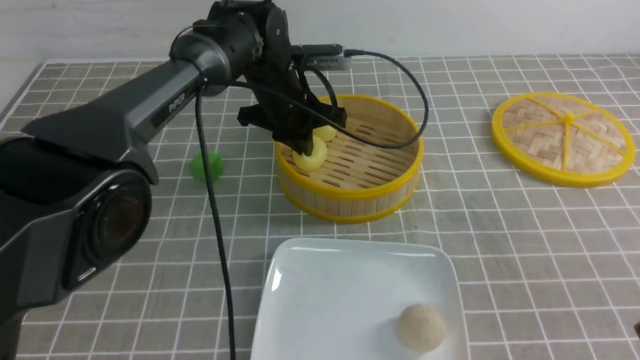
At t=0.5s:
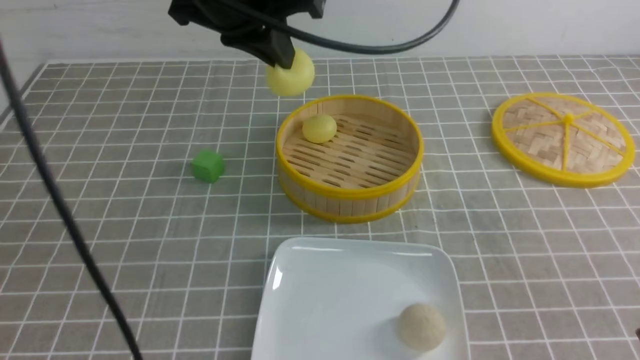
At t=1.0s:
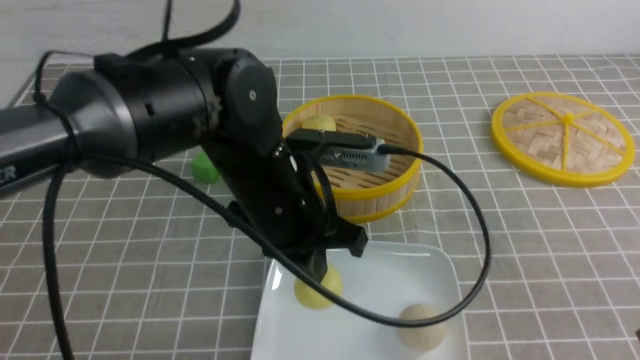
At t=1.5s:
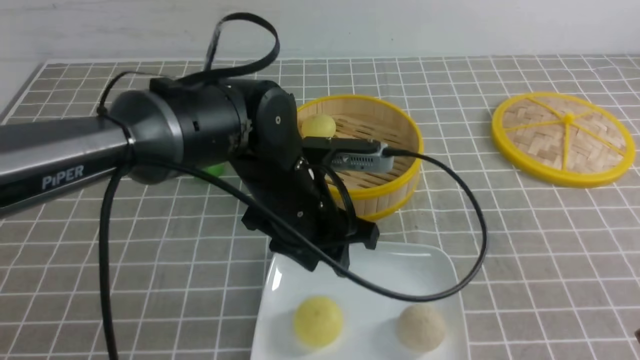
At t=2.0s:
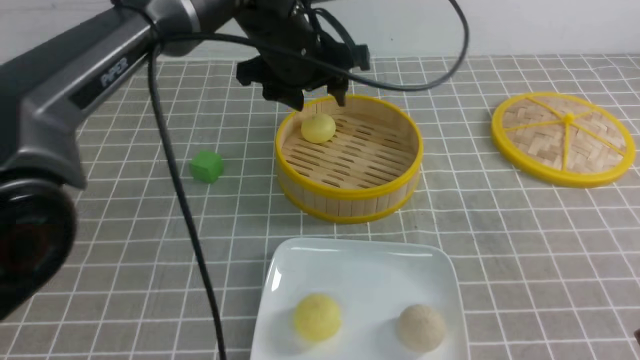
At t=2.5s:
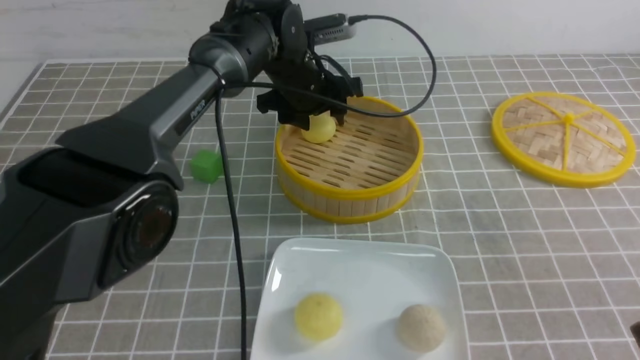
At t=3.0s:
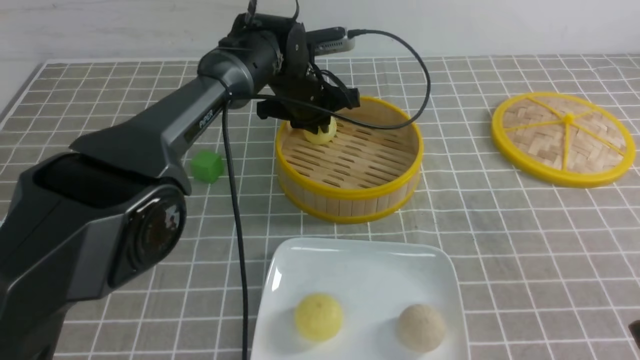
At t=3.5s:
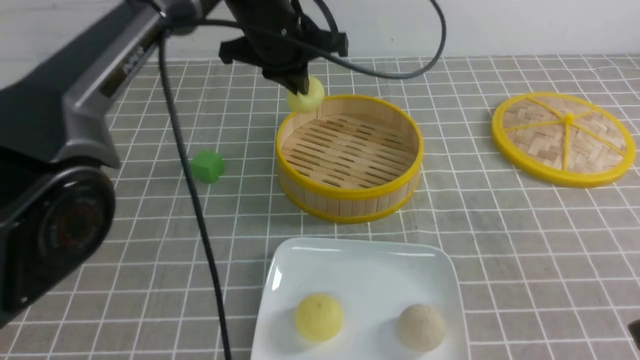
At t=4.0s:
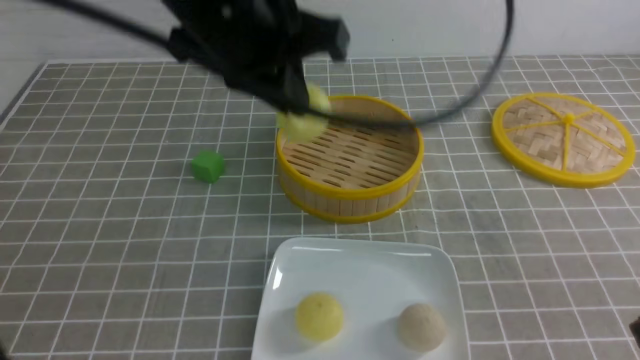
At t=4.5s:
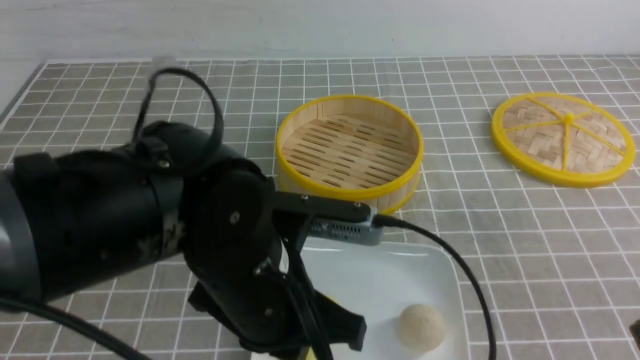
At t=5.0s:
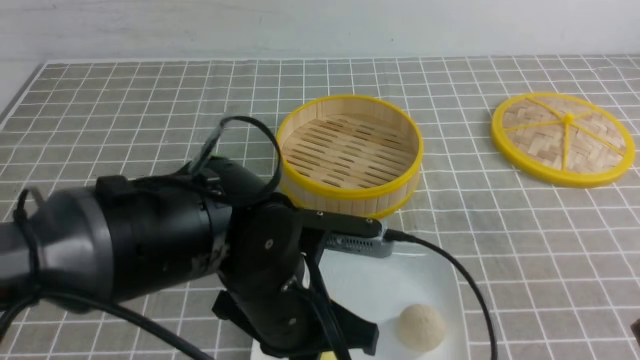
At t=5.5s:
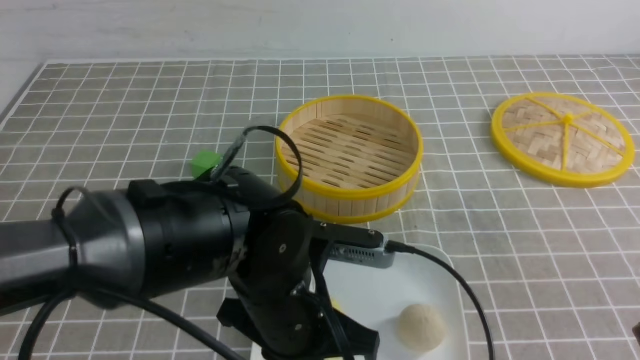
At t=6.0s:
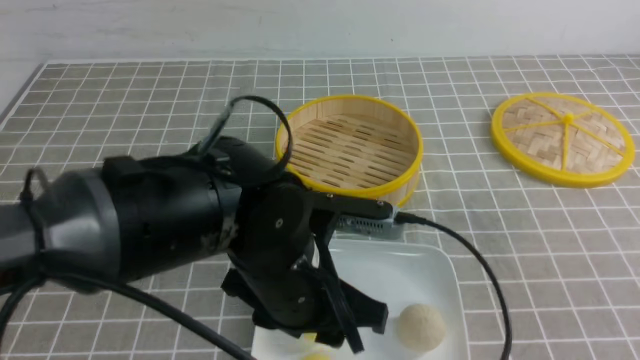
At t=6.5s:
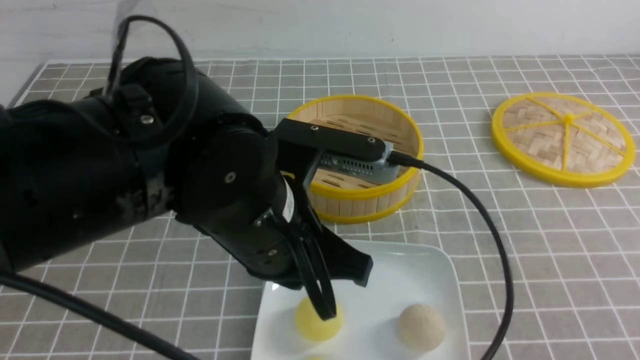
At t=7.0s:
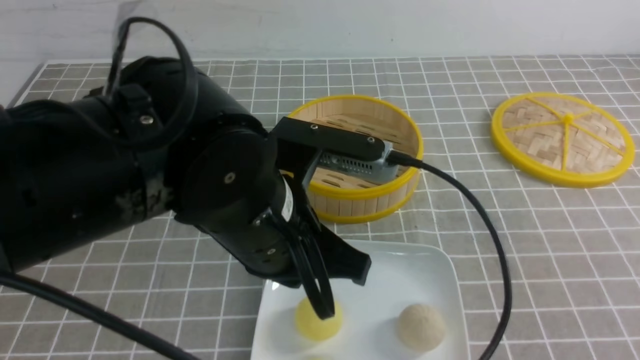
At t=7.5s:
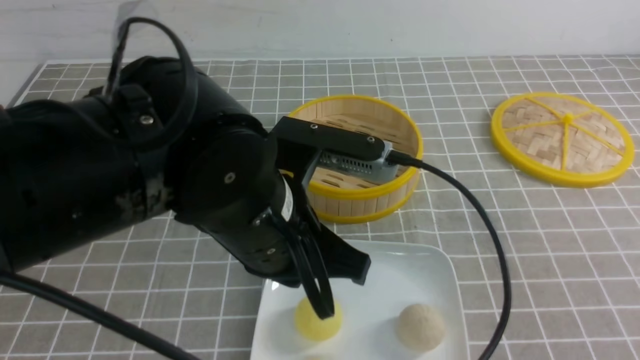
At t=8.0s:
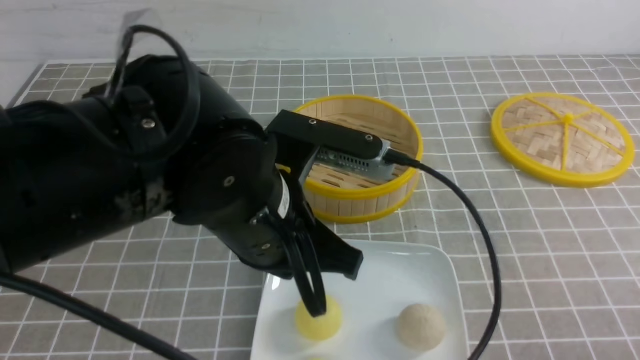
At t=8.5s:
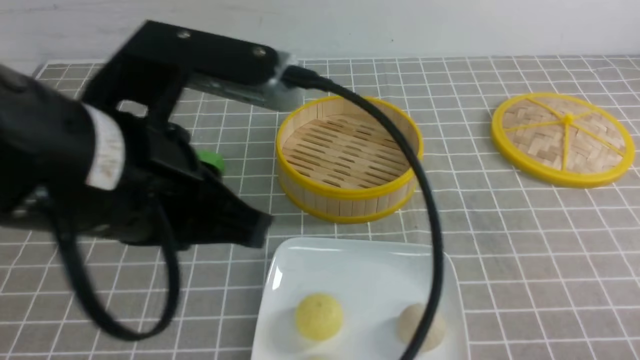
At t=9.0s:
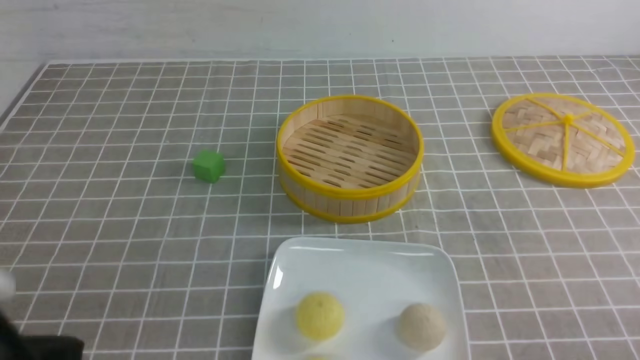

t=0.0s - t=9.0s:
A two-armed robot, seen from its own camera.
Step, t=0.5s - t=1.0s: use the left arm to put the steamed stuffed bun into the plate.
Step, t=1.5s - t=3.0s: use the left arm to grab the steamed stuffed bun that is closest to it.
Step, t=3.5s - t=5.5s: use the left arm to put the steamed stuffed bun into the plate.
t=0.0s - t=2.0s: The left gripper moves upward, some 5 cm, goes backward and returns, some 20 cm each way, and opens up.
t=2.0s - t=4.5s: The left gripper moves backward, some 25 cm, and closes up.
t=4.5s - t=7.0s: The left gripper opens, then closes again. The right gripper travels backward by roughly 5 cm.
t=7.0s - t=9.0s: The left gripper travels to the left and backward by about 20 cm, while the right gripper travels downward by roughly 15 cm.

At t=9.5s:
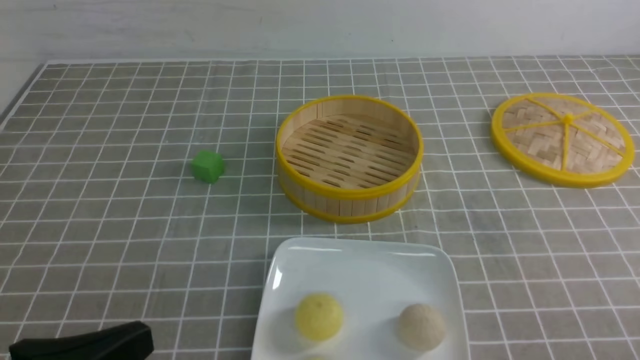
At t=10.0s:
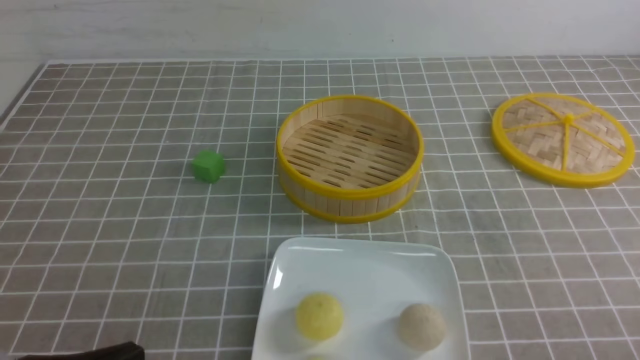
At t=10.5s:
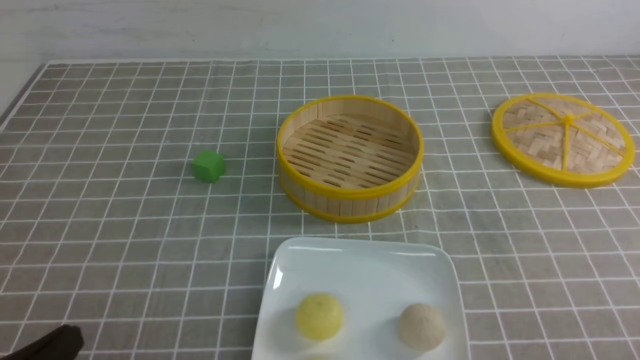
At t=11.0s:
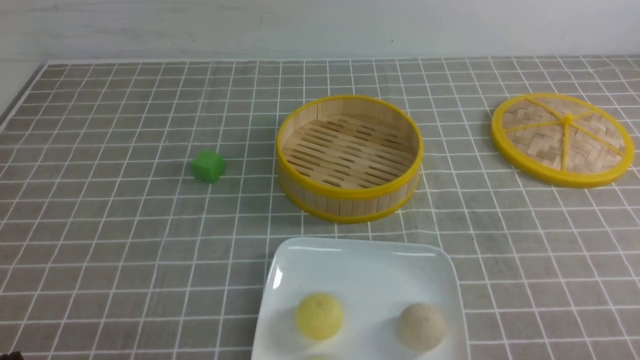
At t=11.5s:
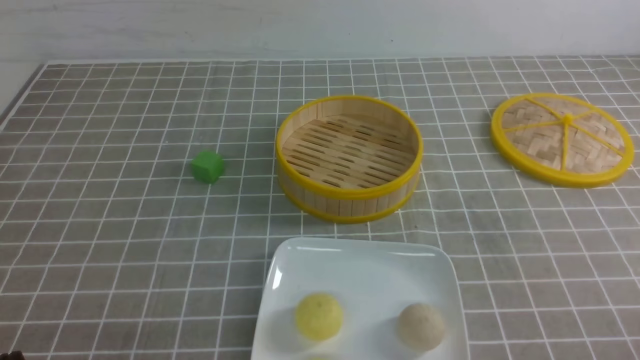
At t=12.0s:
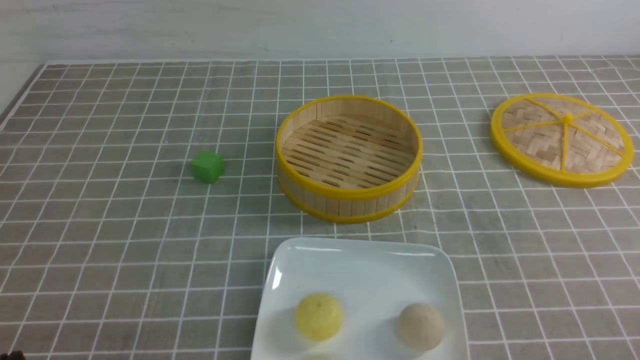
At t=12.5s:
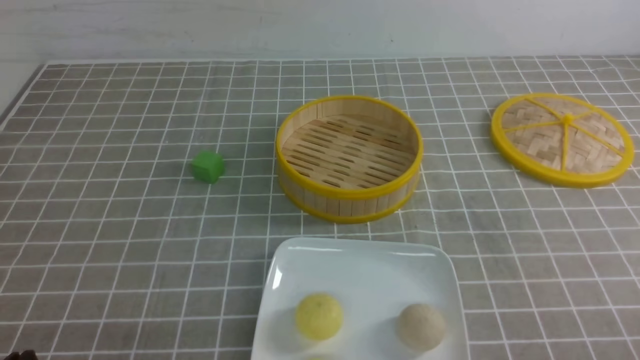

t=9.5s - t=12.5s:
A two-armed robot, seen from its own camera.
t=9.5s - t=11.0s: The left gripper shifts about 10 cm downward.
t=11.0s - t=12.5s: Neither gripper changes place.

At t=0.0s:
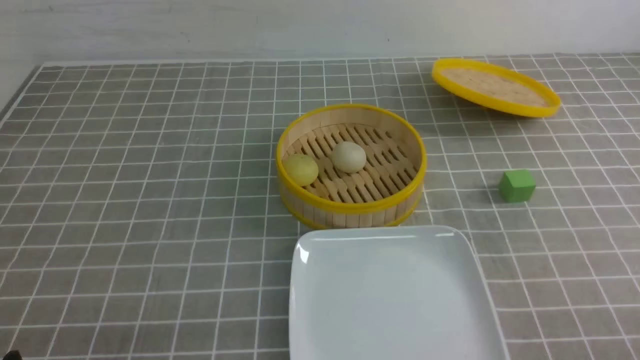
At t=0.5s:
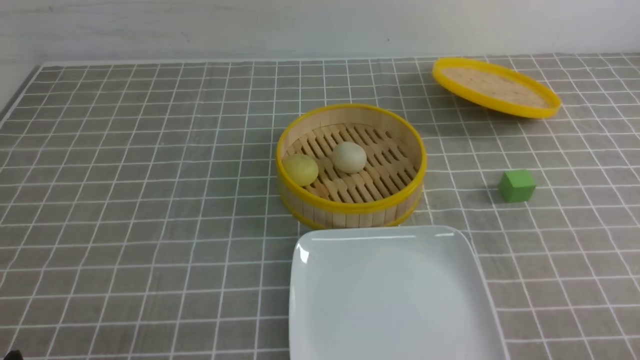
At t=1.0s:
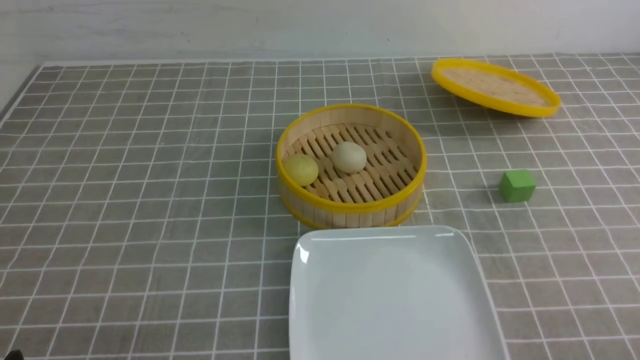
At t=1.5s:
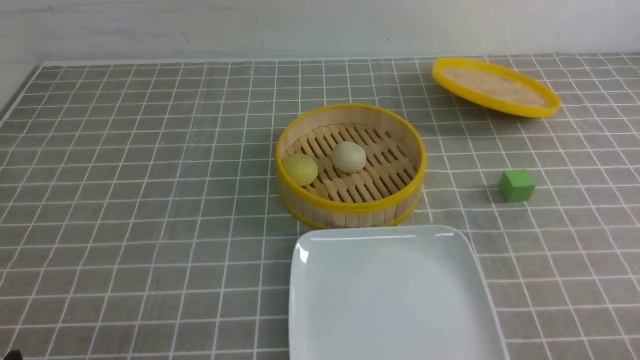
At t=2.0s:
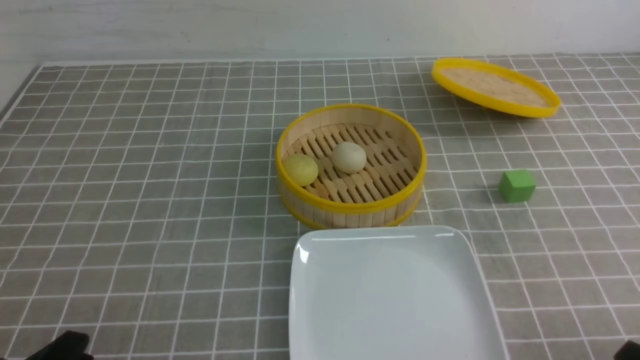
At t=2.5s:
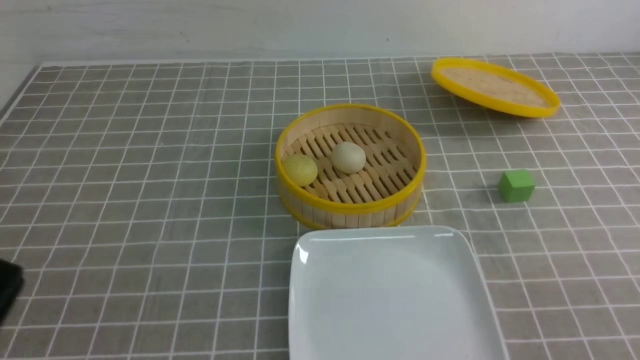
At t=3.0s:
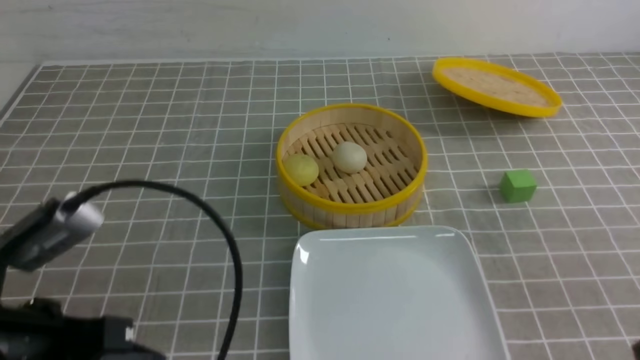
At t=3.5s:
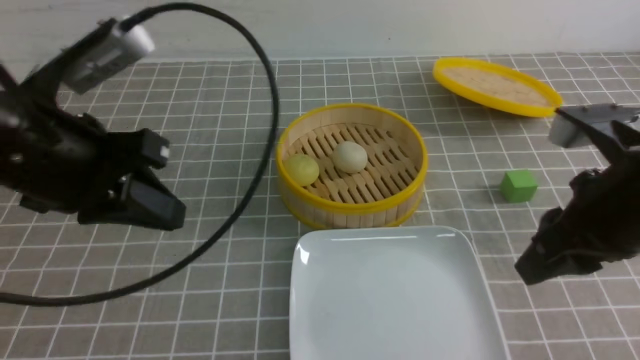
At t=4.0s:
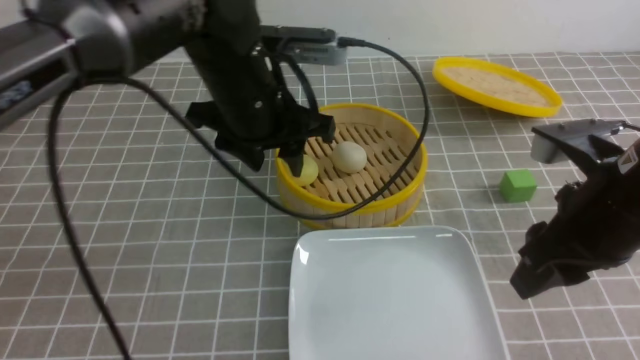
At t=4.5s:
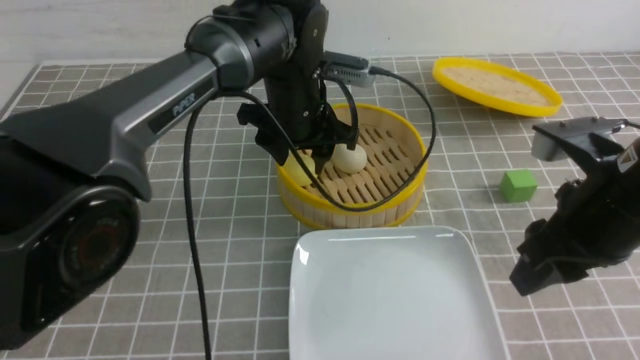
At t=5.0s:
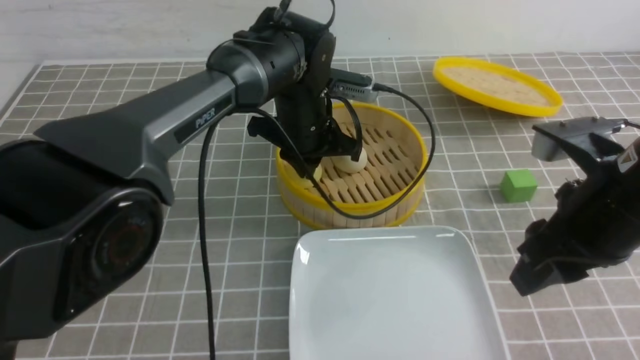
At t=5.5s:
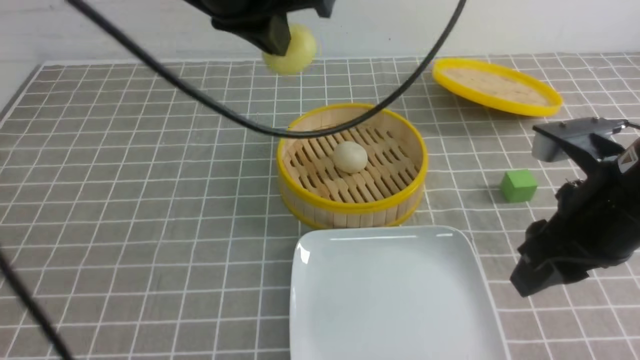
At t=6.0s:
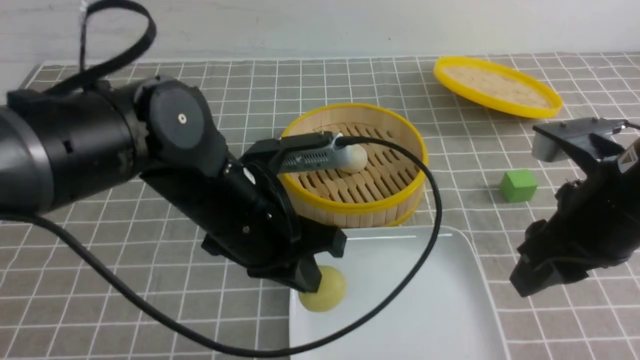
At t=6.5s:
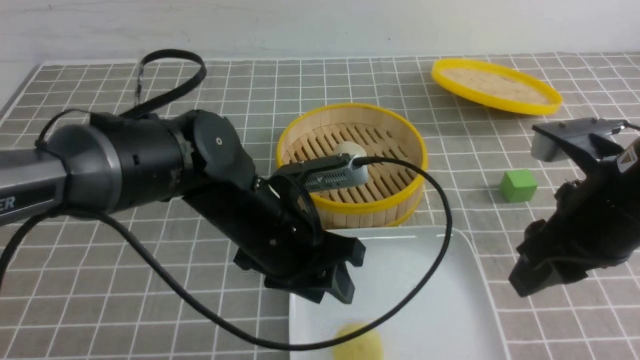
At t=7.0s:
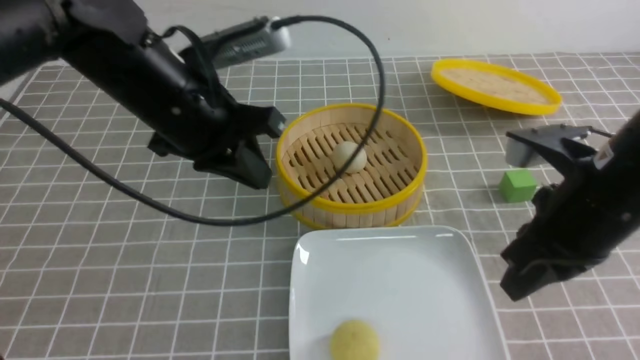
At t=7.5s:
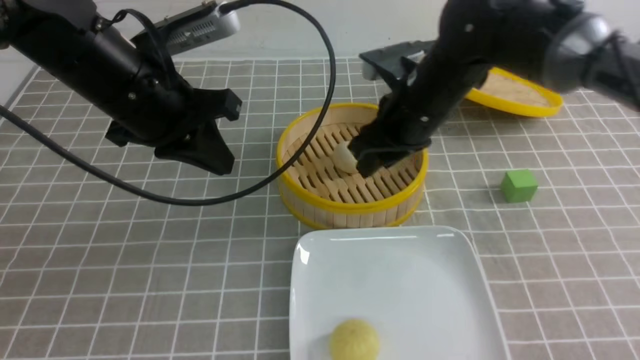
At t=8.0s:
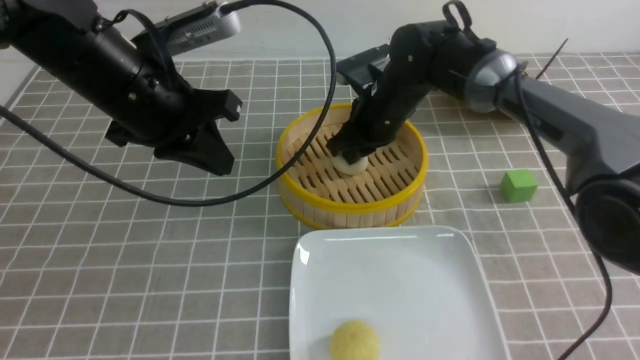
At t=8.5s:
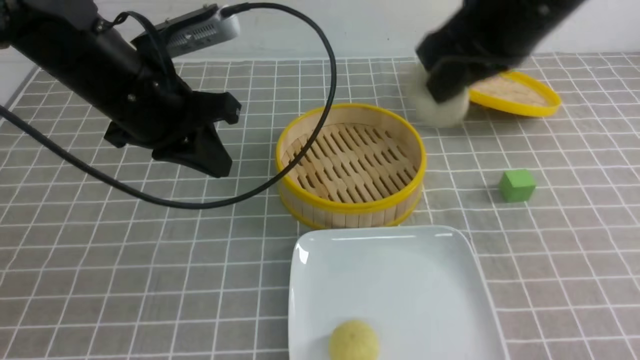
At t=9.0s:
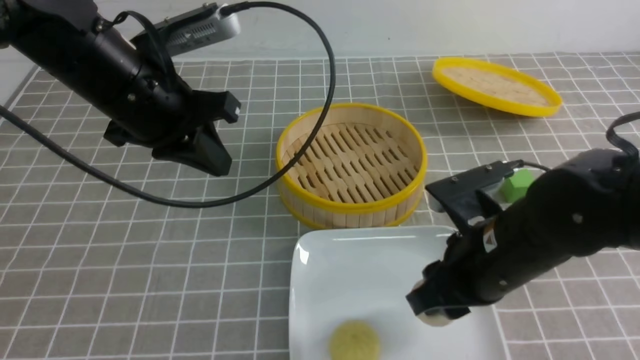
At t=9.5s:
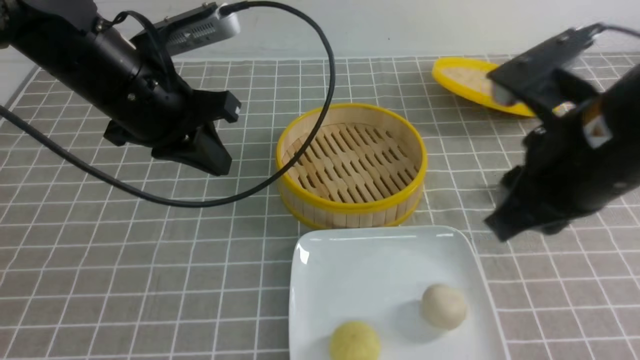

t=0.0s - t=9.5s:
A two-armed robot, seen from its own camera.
Step, t=0.0s - t=5.0s: use the left arm to grab the steamed stuffed bun that is closest to it.
Step, t=5.5s - t=6.0s: use the left arm to put the steamed stuffed bun into the plate.
Step, t=6.5s - t=8.0s: use the right arm to grab the steamed stuffed bun that is closest to it.
Step, t=8.5s - t=9.0s: use the right arm to put the steamed stuffed bun into the plate.
t=2.0s - t=4.0s: The right gripper heads forward, upward and to the left, covering some 25 cm, and closes, then opens again. Meanwhile the left gripper is displaced forward, to the right and upward by some 35 cm, and opens.
t=4.0s - t=5.5s: The left gripper heads upward, covering some 10 cm, and closes.
t=5.5s - t=7.5s: The left gripper travels to the left and downward by some 10 cm, and opens, then closes once more; the right gripper travels forward and to the left by about 20 cm, and closes, then reopens.
t=7.5s - t=9.5s: The right gripper heads backward and upward, covering about 20 cm, and closes its fingers.
